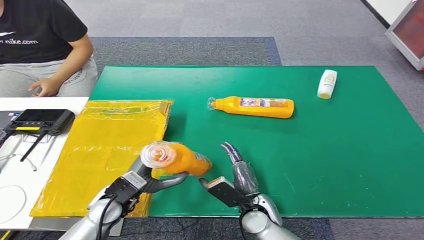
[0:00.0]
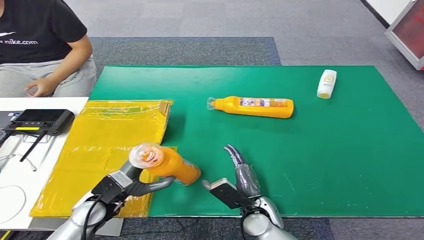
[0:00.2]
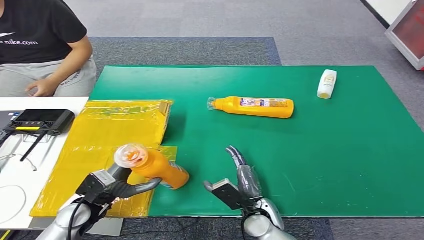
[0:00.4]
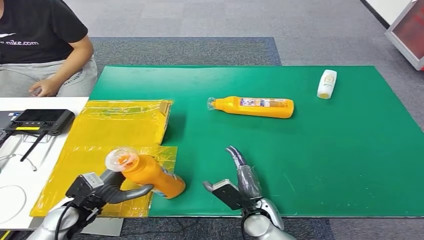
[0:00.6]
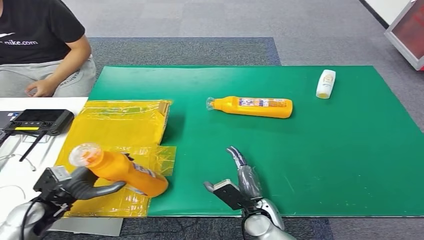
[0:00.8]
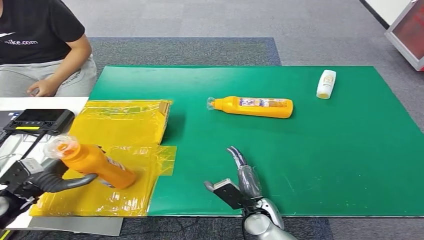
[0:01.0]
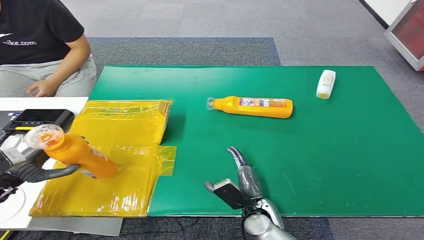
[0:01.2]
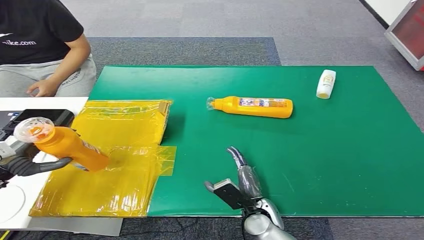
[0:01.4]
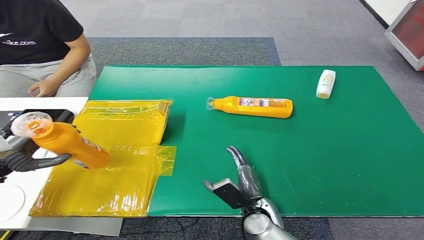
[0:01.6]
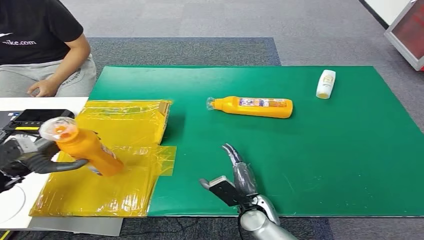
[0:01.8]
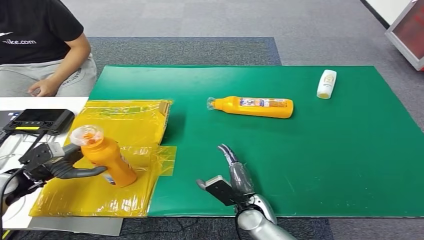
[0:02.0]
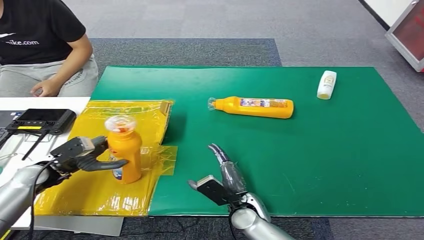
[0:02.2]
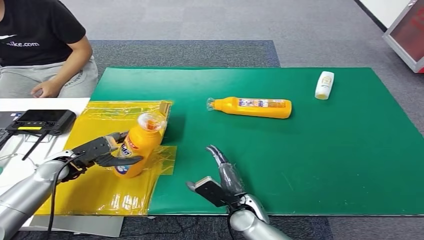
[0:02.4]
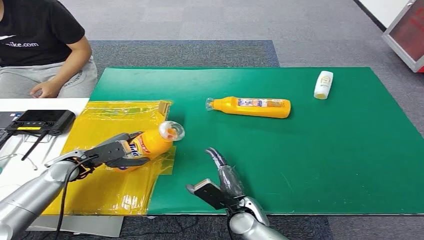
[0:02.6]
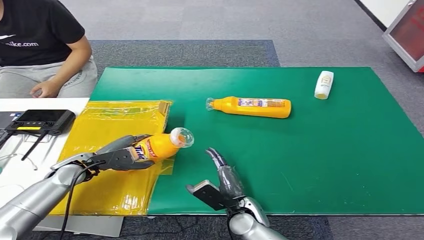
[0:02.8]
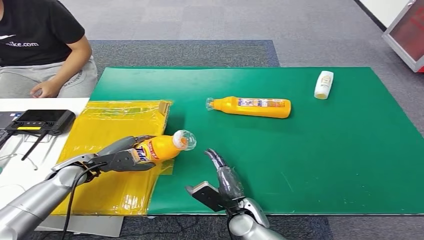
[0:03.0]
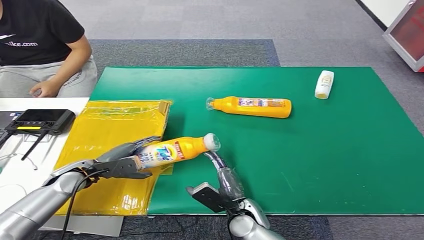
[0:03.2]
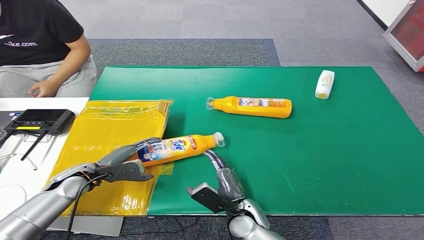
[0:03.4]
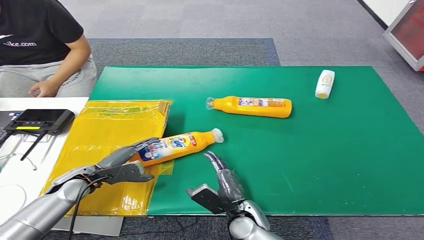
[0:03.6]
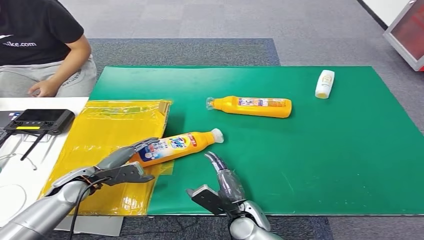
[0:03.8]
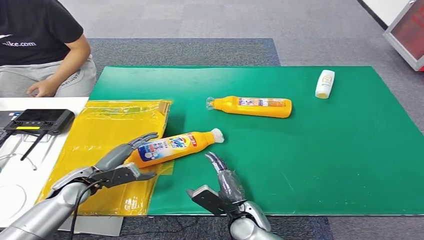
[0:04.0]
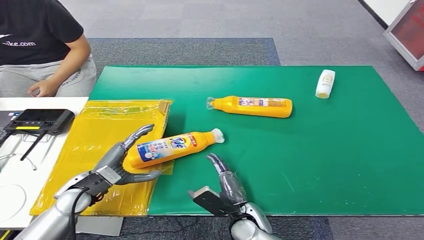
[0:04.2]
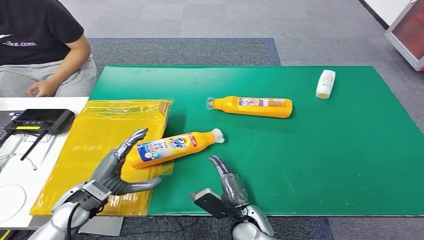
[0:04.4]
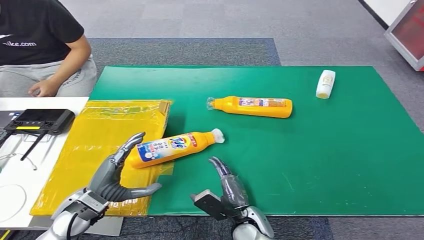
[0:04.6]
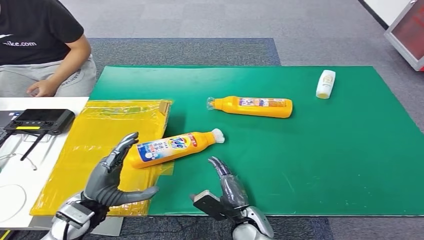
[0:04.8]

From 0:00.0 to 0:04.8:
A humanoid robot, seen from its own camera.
Step, from 0:00.0 to 0:04.8: Turn the bottle to the front side.
From 0:00.0 to 0:01.6: The left hand heads to the left, covering roughly 25 cm.
From 0:03.2 to 0:04.8: The left hand moves backward and to the right, approximately 15 cm.
